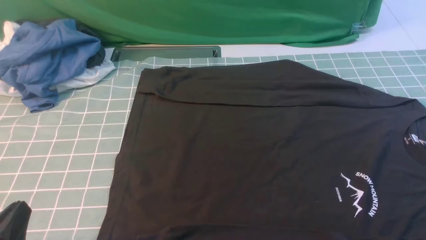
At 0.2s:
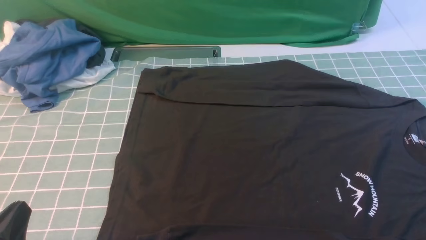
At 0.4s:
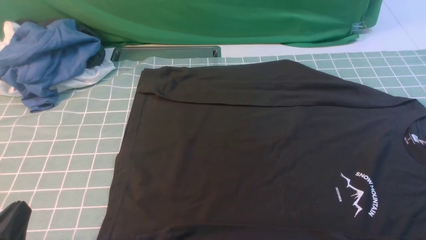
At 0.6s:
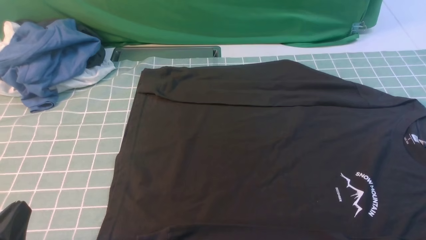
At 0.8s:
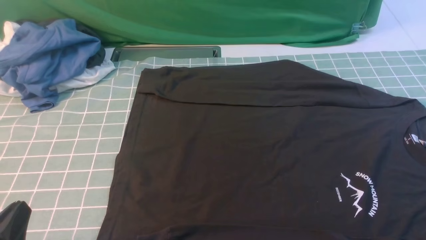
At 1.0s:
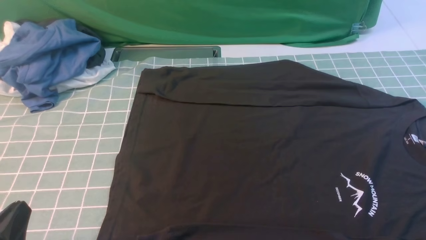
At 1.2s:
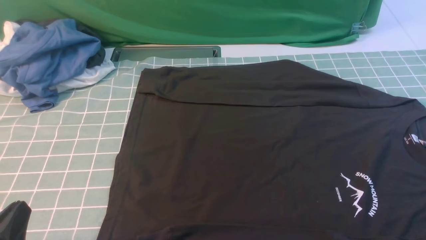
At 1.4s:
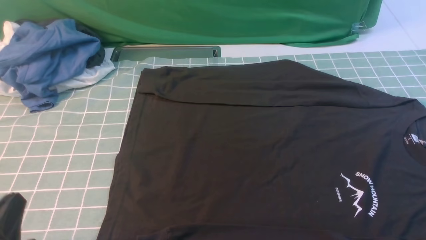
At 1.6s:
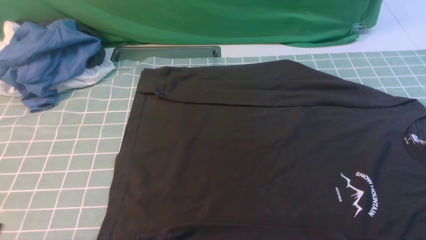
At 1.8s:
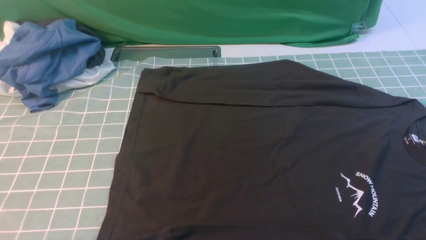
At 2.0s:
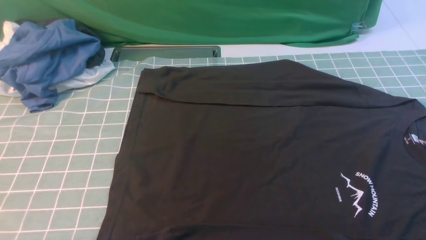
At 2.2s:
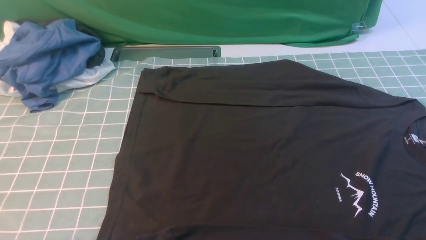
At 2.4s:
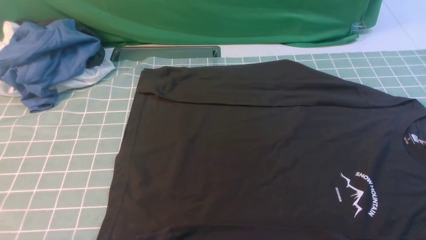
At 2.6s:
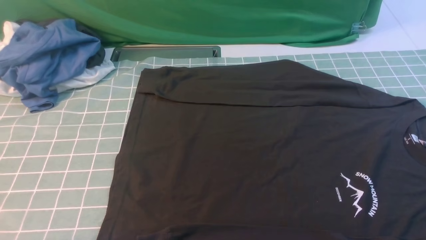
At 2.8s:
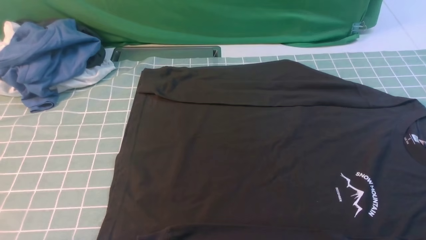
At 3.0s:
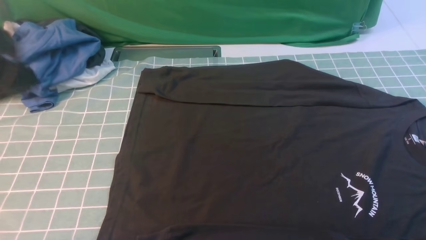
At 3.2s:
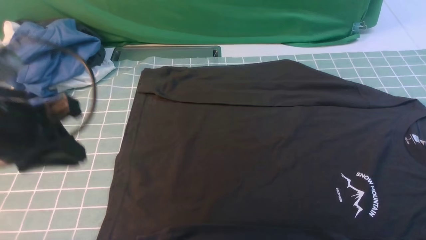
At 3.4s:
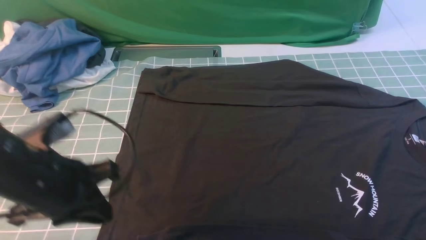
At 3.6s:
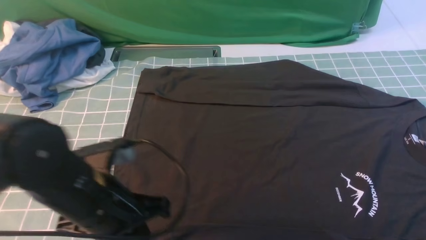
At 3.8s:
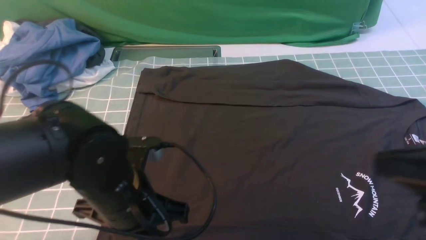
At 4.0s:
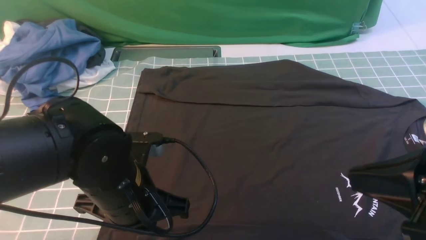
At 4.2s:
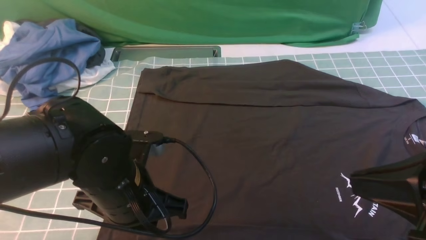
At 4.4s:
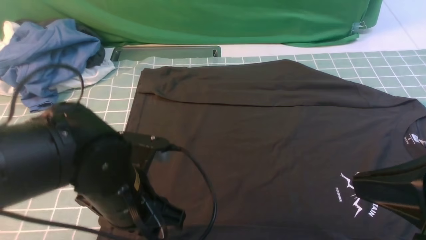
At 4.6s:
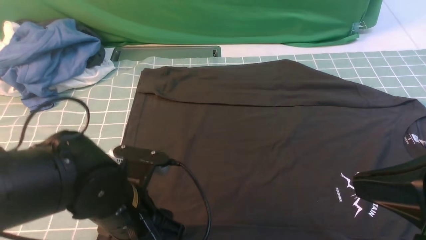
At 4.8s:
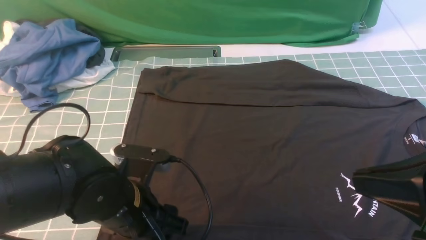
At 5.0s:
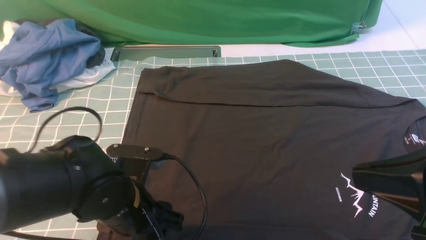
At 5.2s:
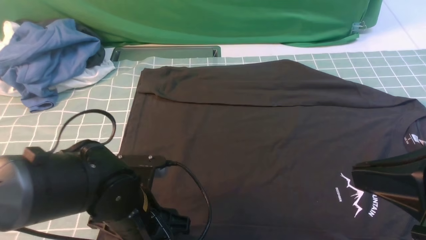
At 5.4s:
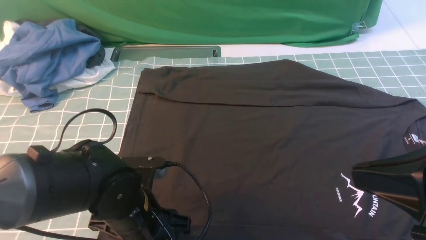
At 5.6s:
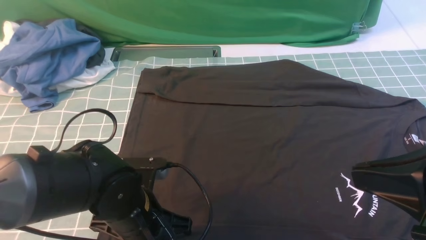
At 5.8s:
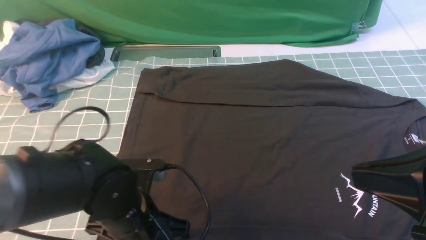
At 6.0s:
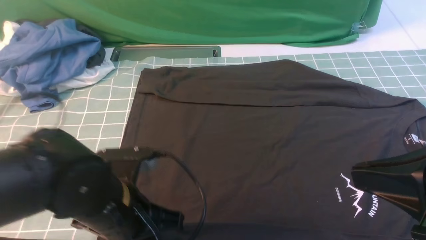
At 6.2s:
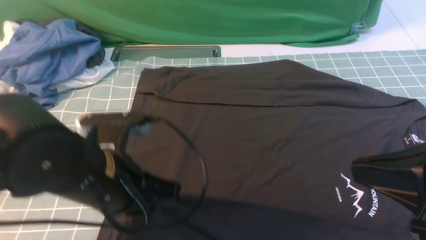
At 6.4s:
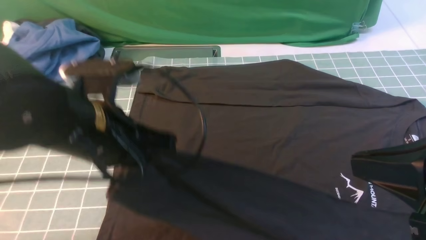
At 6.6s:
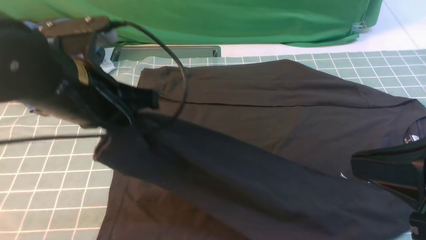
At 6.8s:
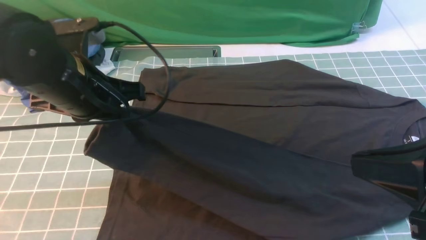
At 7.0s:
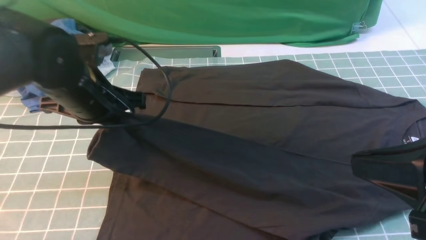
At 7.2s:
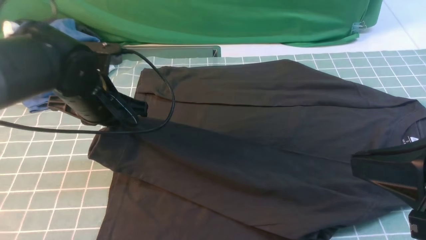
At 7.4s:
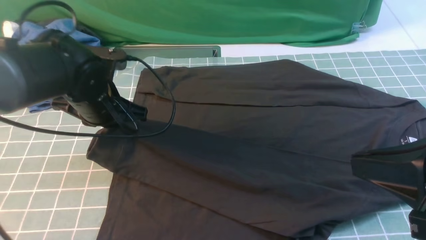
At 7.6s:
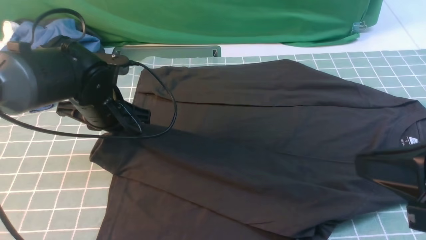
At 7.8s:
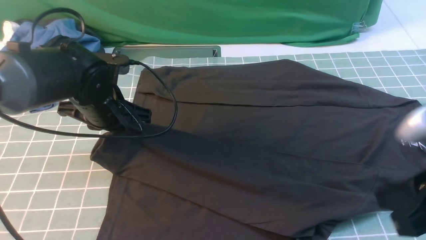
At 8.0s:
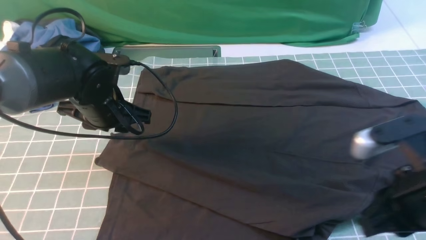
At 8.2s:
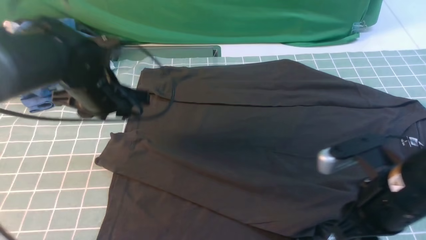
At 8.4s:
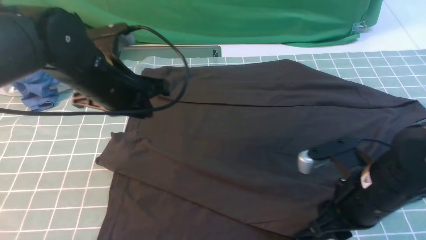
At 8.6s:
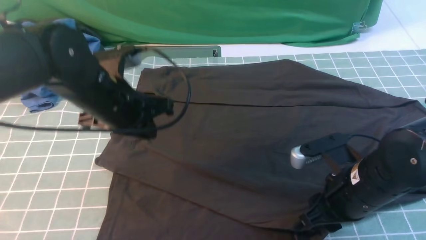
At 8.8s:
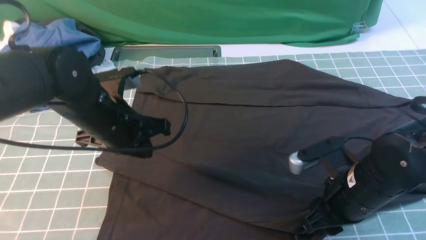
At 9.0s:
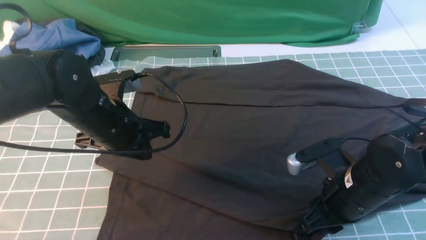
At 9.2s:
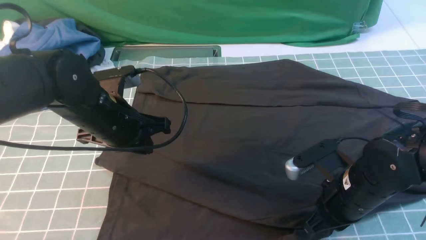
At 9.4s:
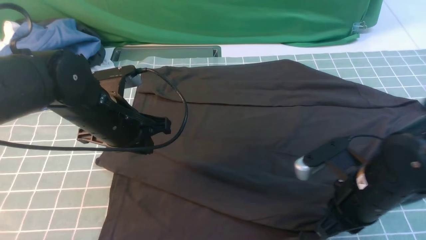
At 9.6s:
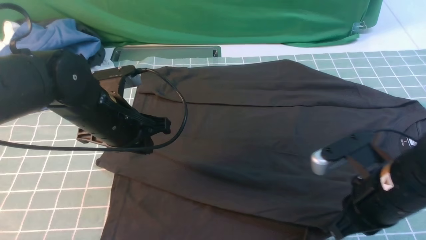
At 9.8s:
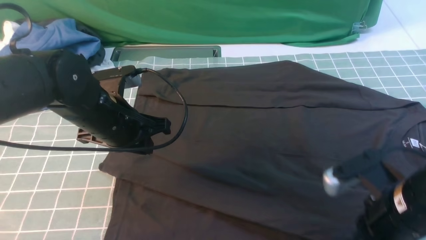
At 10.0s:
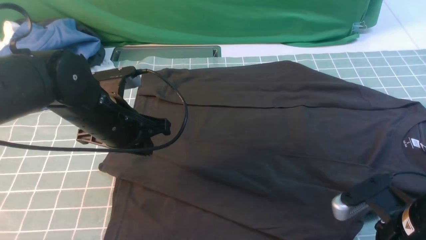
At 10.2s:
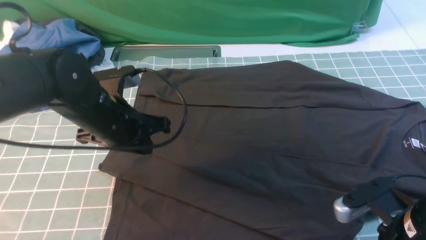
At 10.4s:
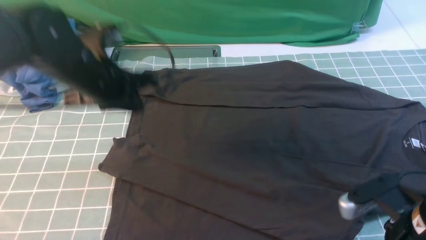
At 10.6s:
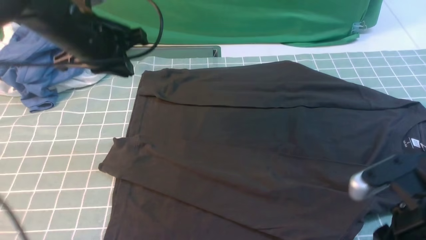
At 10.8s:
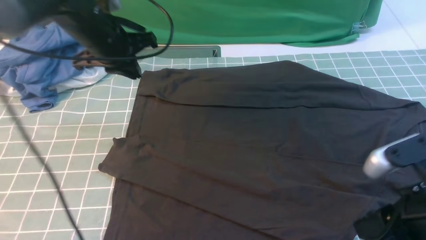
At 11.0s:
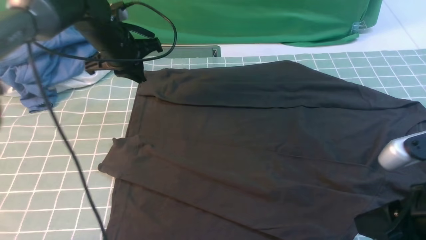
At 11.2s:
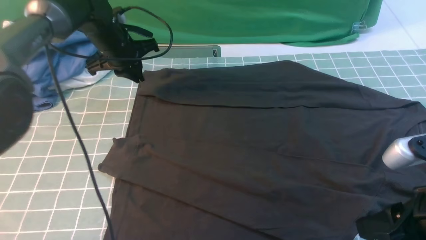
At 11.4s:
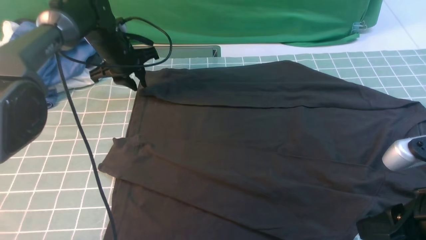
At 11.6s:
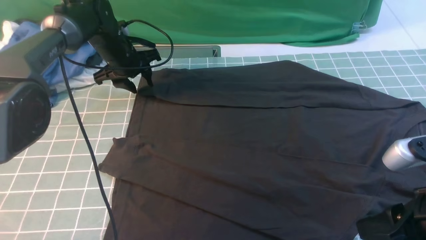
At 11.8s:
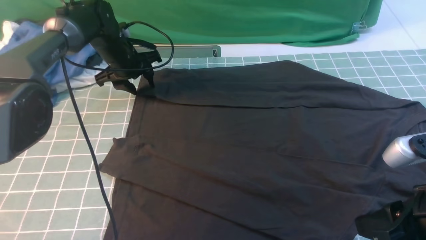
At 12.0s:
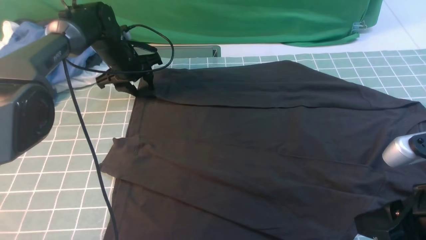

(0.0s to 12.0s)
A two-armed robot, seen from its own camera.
Step, 0.0s - 5.8s: use the left arm to clamp the cuff closest to it.
Step, 6.0s - 8.0s: use the left arm to drag and place the cuff at the centered position on the left edge of the fabric.
1.6s - 3.0s: The left gripper shifts about 20 cm upward and forward.
3.0s - 4.4s: The right gripper heads upward and to the left, covering approximately 15 cm, and closes up; the left gripper is displaced downward and to the right by some 20 cm, and opens its fingers.
4.4s - 6.0s: The left gripper closes.
6.0s - 7.6s: The left gripper heads forward, covering about 15 cm.
7.6s - 9.0s: The left gripper ends up about 5 cm from where it was, while the right gripper goes some 20 cm downward and forward.
9.0s - 10.4s: The left gripper changes place by some 5 cm. Meanwhile the right gripper shifts about 5 cm backward.
10.4s - 12.0s: The right gripper travels upward by some 5 cm; the left gripper shifts some 20 cm forward and downward, and opens up.

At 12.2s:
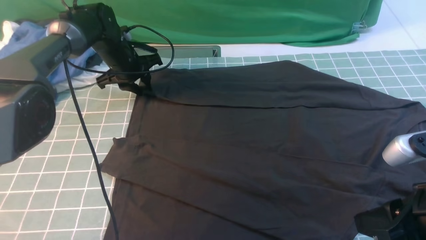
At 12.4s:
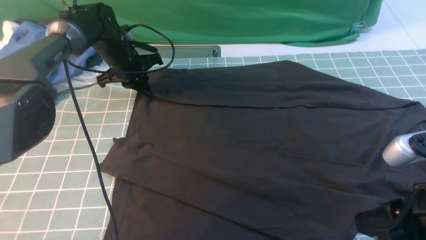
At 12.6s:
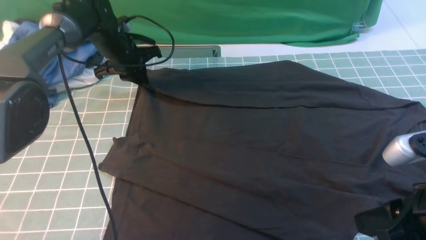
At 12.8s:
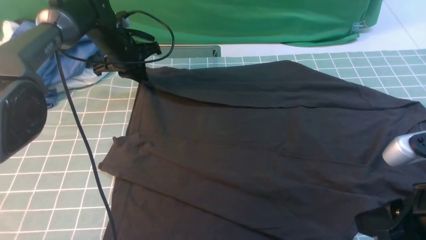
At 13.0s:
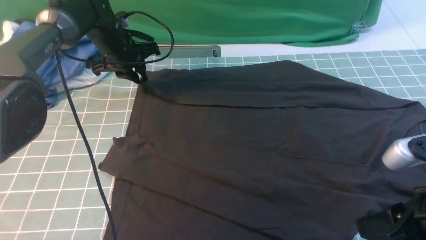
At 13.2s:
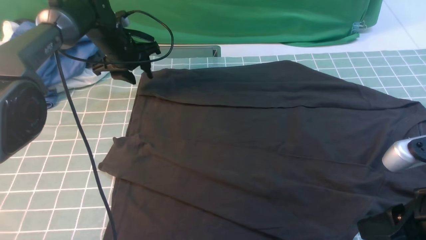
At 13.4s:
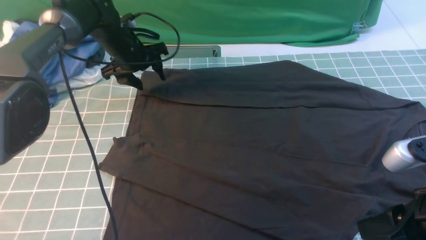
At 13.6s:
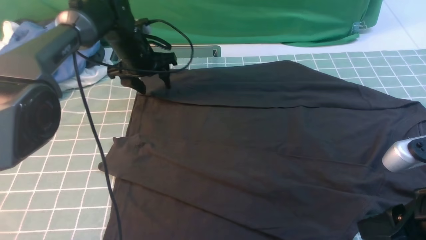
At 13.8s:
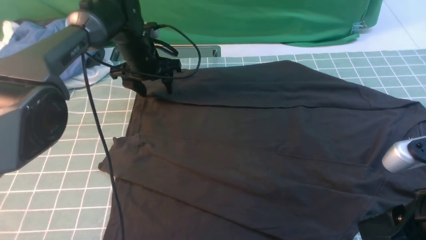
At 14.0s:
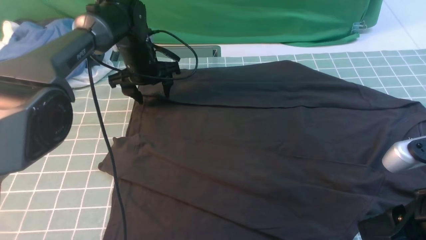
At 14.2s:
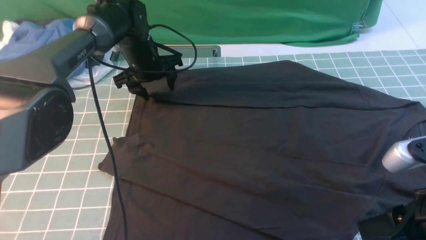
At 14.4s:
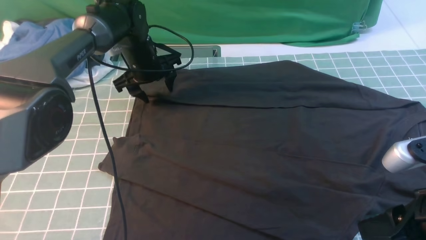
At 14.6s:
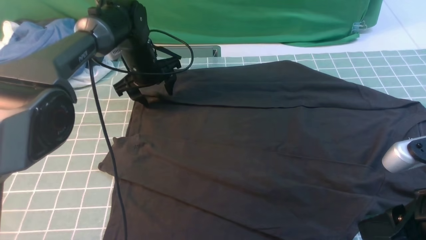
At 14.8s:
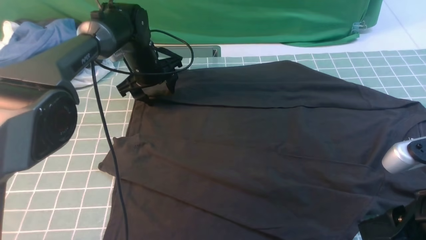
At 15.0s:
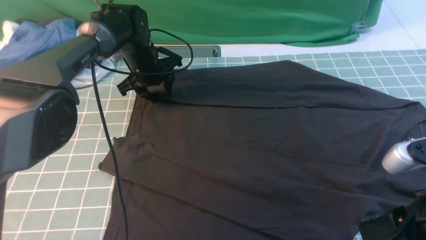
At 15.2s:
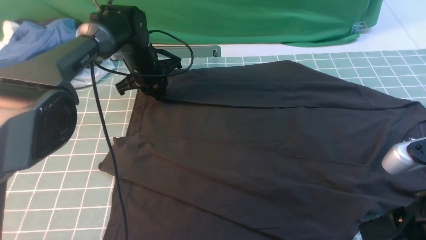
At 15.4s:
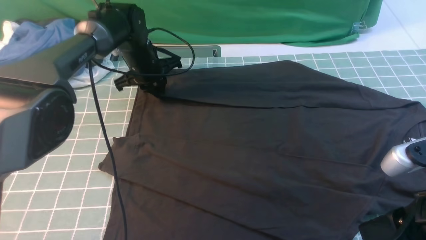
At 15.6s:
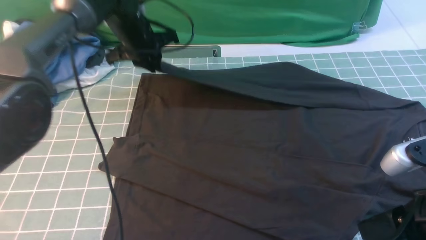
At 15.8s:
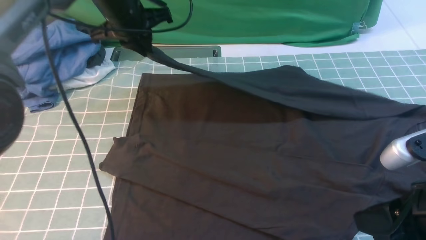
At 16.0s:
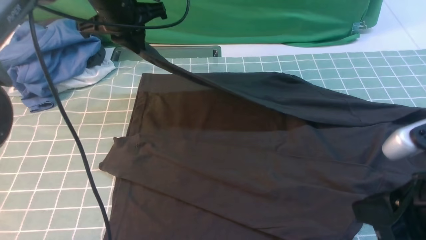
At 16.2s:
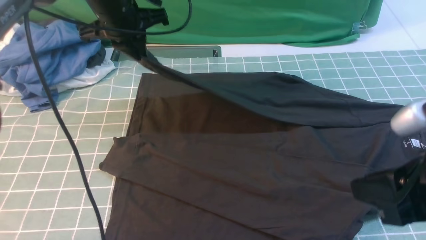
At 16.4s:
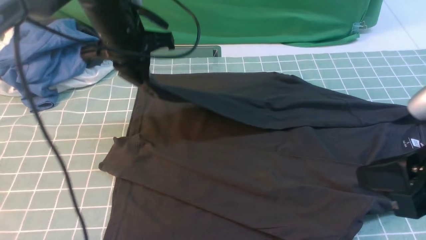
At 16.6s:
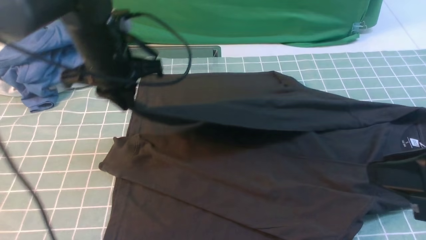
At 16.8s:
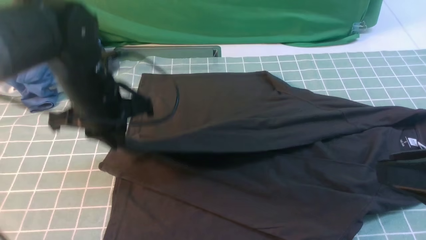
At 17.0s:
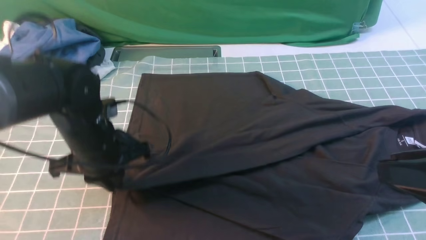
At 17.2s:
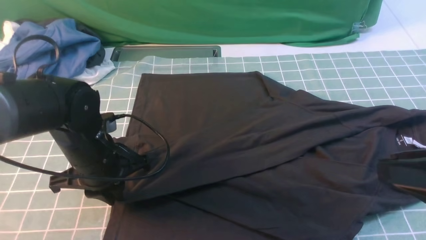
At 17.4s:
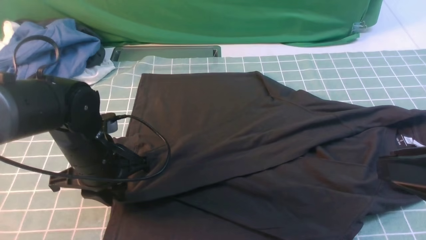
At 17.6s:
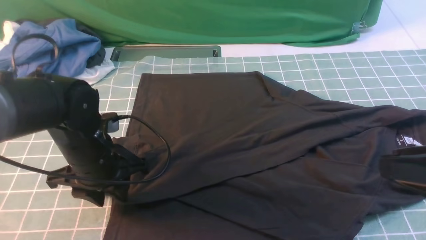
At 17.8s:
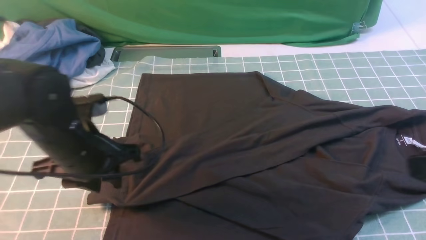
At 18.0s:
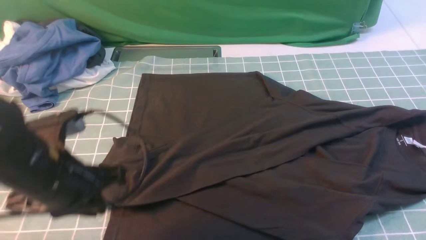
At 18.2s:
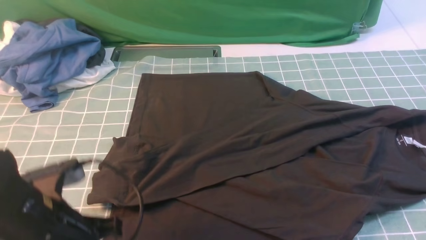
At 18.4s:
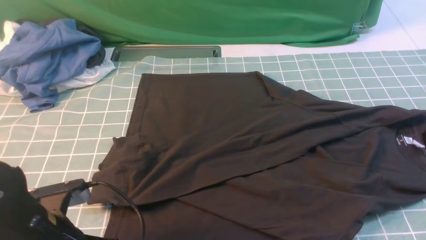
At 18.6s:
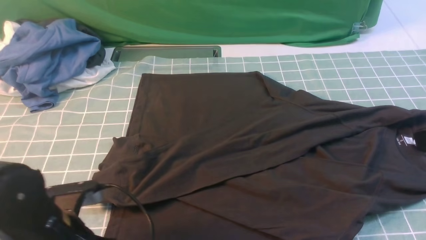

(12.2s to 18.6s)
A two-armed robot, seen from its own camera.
Step, 12.2s - 15.4s: use the left arm to clamp the cuff farthest from it.
Step, 15.6s - 18.0s: use the left arm to drag and drop the cuff onto the cuff closest to the left arm.
12.2s - 13.8s: The left gripper shifts by about 5 cm, and opens its fingers.
13.8s - 15.4s: The left gripper closes.
15.4s - 17.0s: The left gripper is displaced backward by some 20 cm. The right gripper goes about 10 cm upward.
17.0s - 18.6s: The left gripper is displaced backward by some 15 cm, and opens up.
